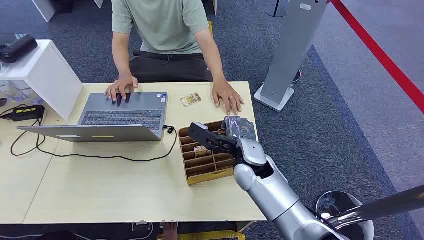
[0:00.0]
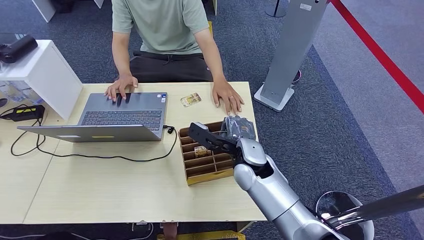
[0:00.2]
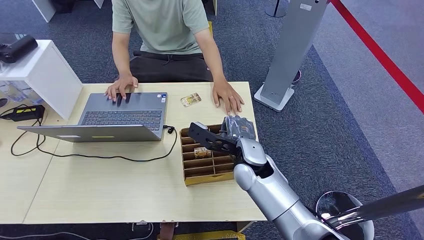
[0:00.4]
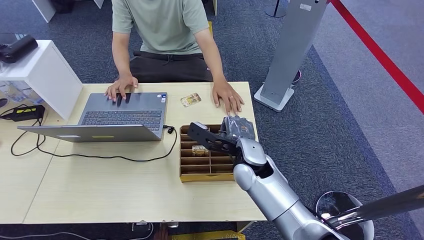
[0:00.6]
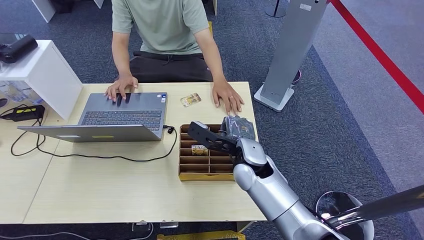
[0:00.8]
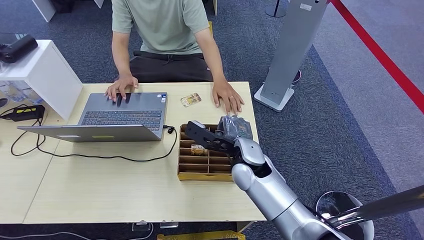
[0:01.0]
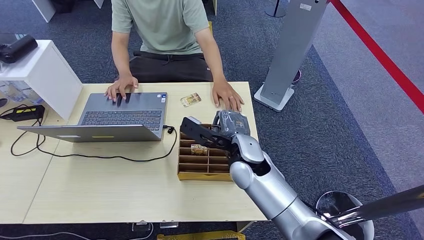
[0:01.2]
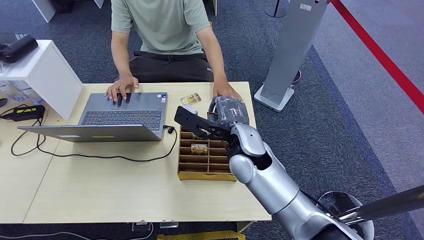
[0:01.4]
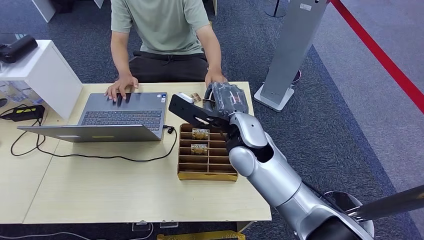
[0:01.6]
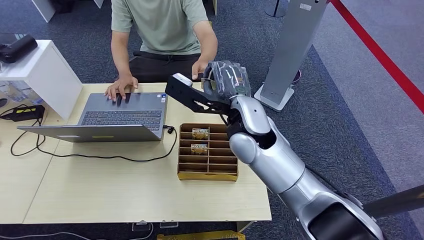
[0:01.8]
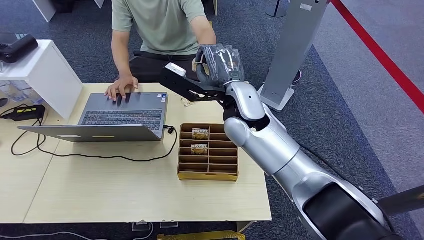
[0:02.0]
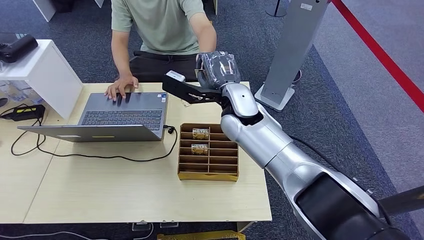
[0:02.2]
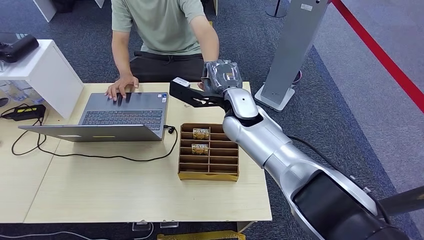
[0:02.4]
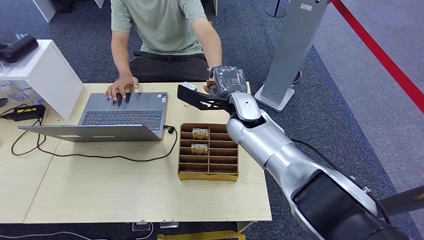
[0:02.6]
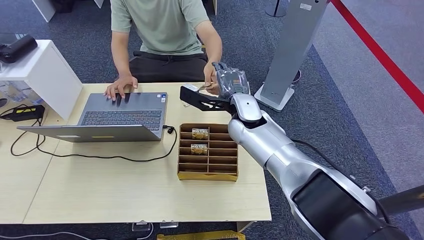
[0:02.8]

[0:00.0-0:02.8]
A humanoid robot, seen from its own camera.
Step, 0:00.0 to 0:01.6: Pick up the key card from the card box.
Step, 0:01.8 to 0:02.8: Hand the key card to the target.
0:01.4 to 0:02.8: The right hand is displaced forward by about 10 cm.
